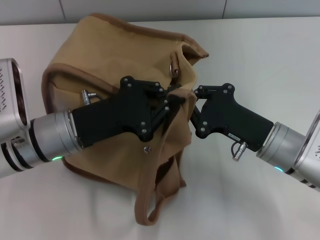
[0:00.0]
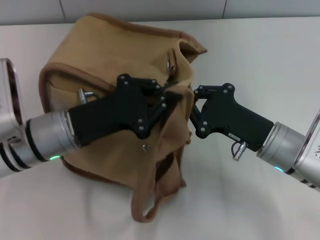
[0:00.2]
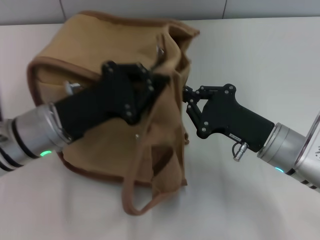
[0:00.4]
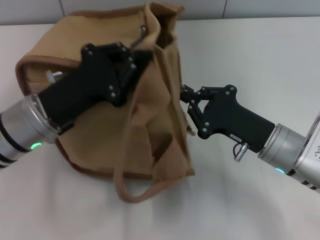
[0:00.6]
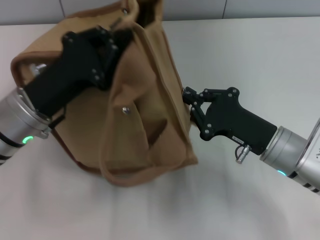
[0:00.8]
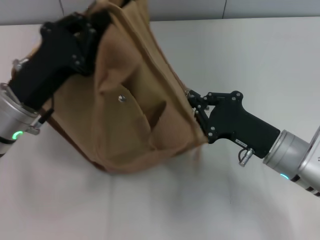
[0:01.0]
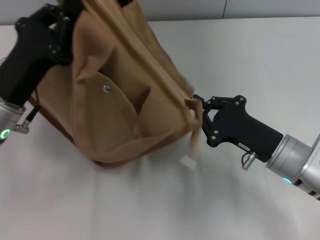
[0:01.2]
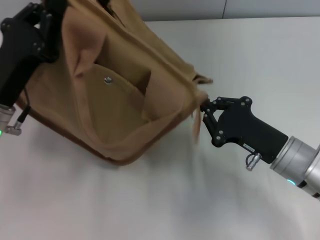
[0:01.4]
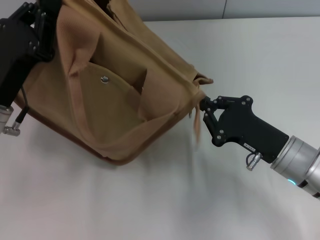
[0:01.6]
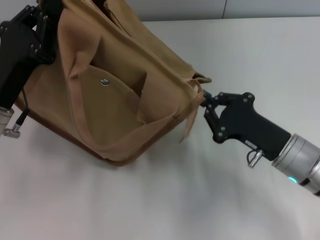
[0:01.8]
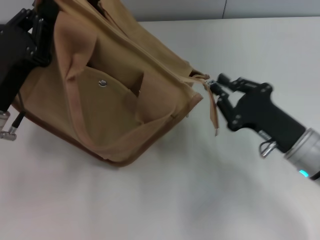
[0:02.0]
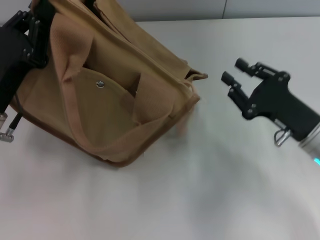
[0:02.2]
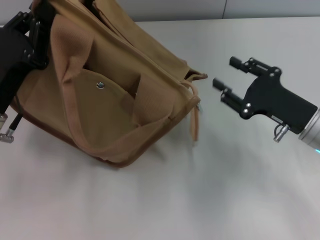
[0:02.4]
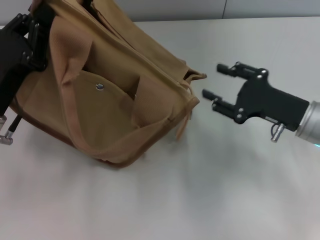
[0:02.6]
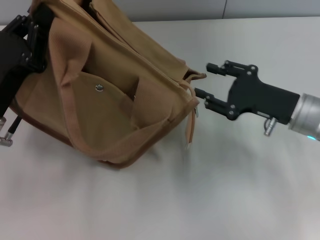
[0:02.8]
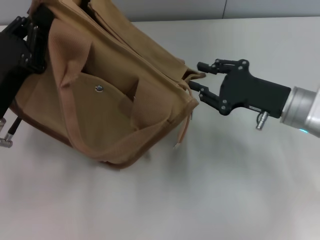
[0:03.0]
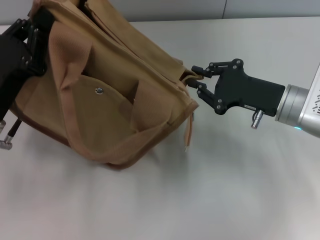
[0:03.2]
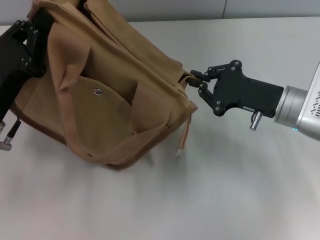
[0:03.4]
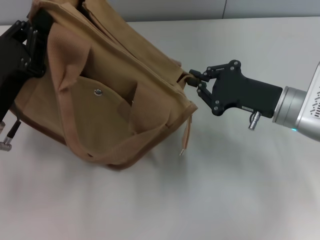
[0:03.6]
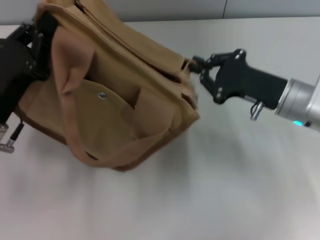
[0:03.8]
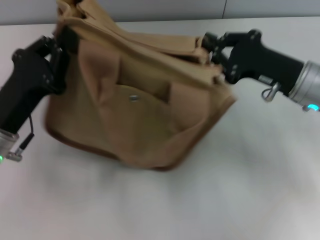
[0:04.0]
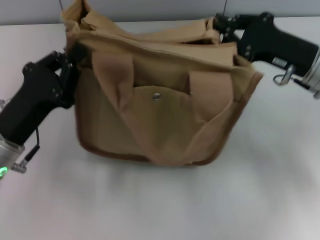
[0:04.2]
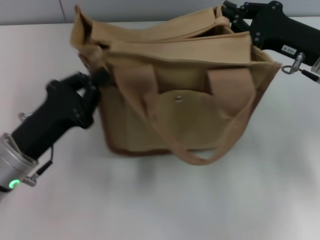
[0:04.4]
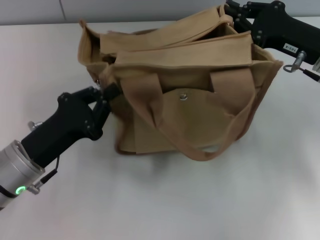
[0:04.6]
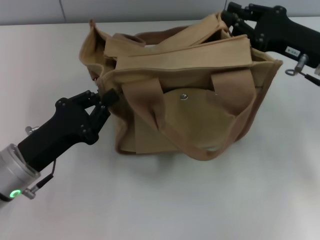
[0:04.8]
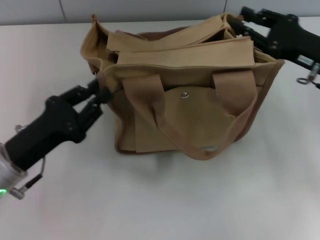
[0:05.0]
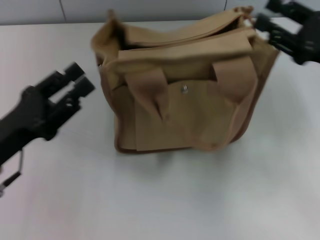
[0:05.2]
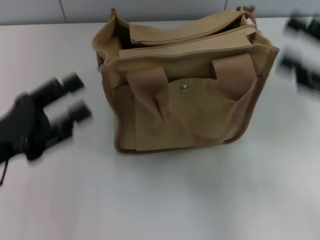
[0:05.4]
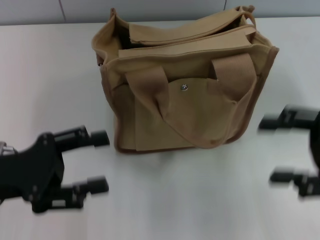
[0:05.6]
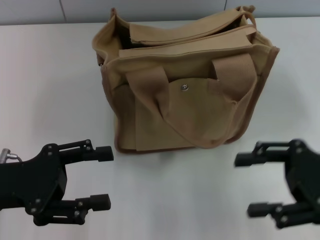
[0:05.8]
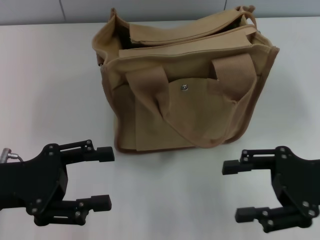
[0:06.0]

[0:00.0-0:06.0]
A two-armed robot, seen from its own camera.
Step, 0:00.0 to 0:02.0: Pull open the zipper with your right hand.
Step, 0:02.2 to 0:05.0: Grab the bag with your left hand.
0:00.0 to 0:01.6: The left gripper goes about 5 cm to the left.
0:01.6 to 0:03.0: The right gripper shifts some 5 cm forward, and opens up.
0:03.0 to 0:04.4: The right gripper heads upward, covering approximately 5 cm, and closes up.
0:04.4 to 0:06.0: The right gripper is displaced backward by some 10 cm, and opens up, while the left gripper changes place by about 5 cm, and opens.
